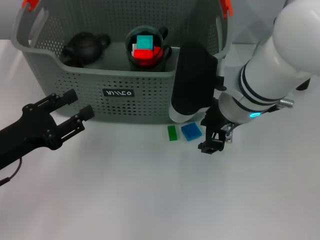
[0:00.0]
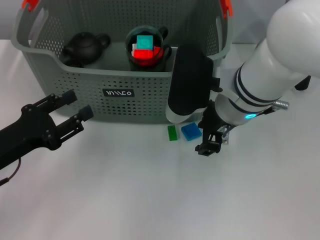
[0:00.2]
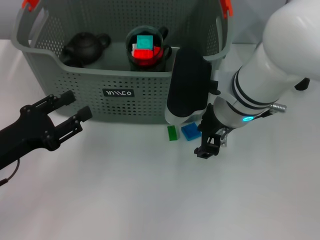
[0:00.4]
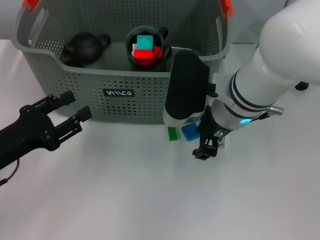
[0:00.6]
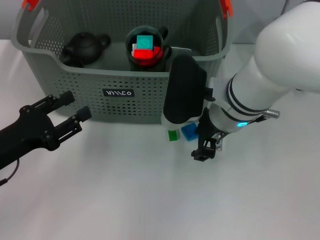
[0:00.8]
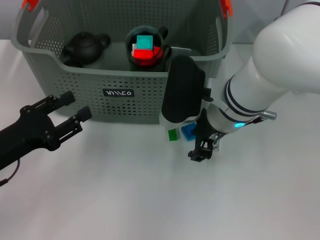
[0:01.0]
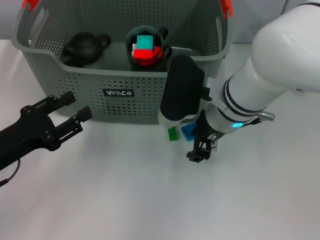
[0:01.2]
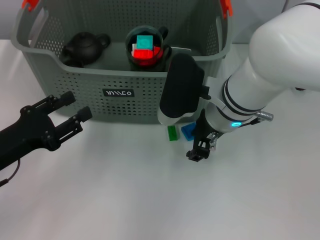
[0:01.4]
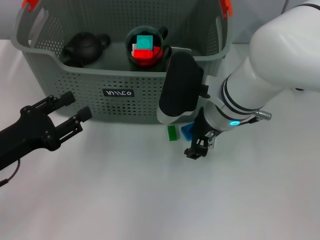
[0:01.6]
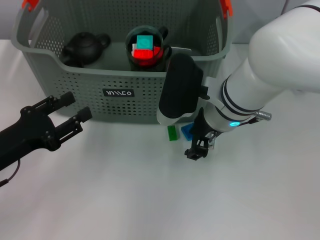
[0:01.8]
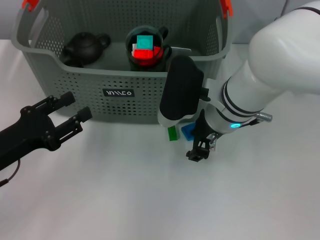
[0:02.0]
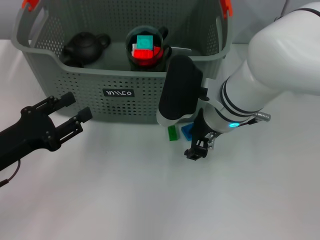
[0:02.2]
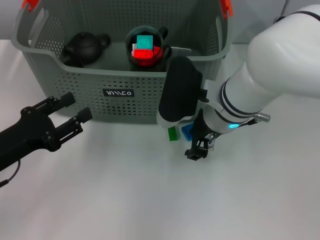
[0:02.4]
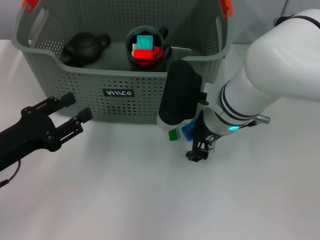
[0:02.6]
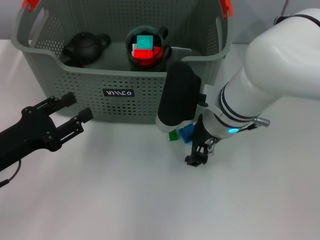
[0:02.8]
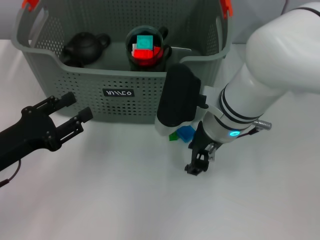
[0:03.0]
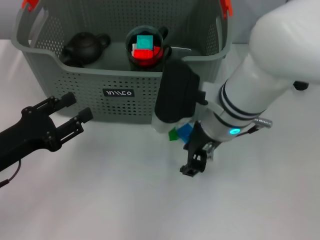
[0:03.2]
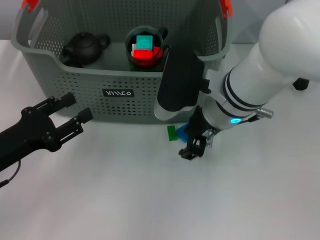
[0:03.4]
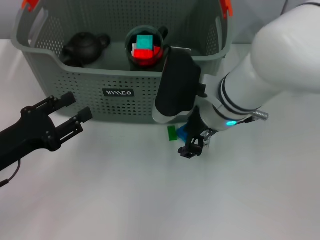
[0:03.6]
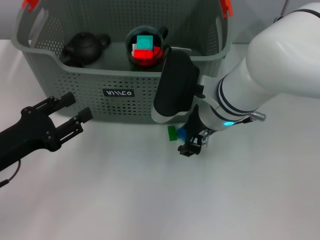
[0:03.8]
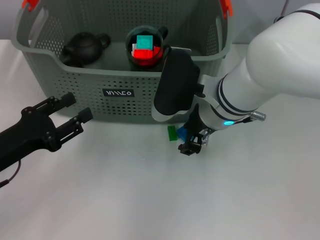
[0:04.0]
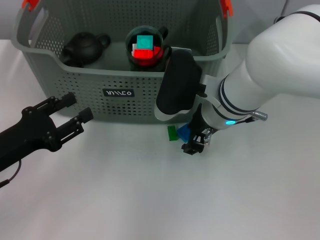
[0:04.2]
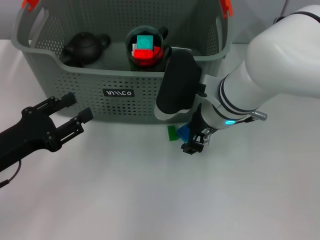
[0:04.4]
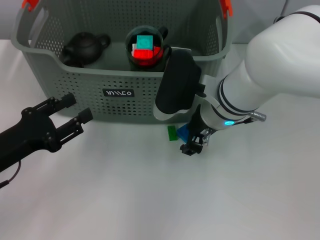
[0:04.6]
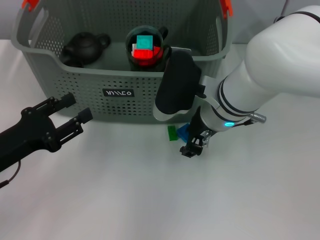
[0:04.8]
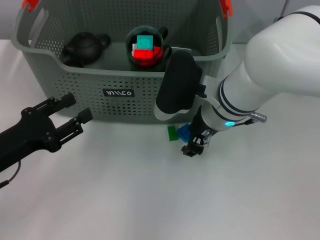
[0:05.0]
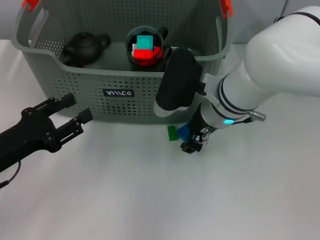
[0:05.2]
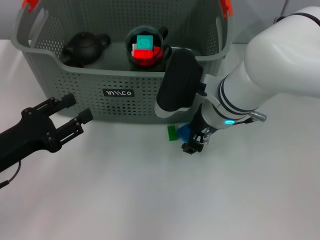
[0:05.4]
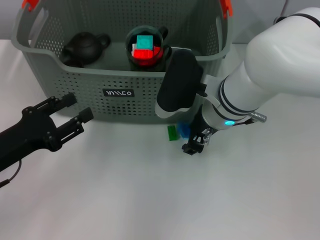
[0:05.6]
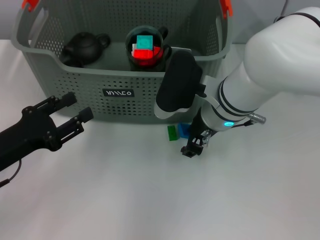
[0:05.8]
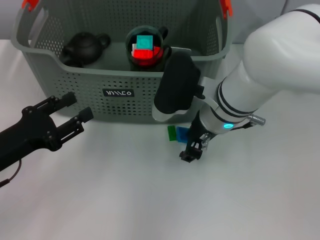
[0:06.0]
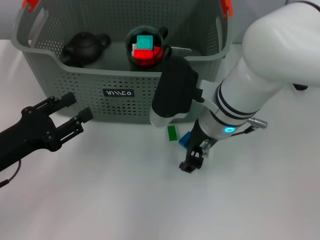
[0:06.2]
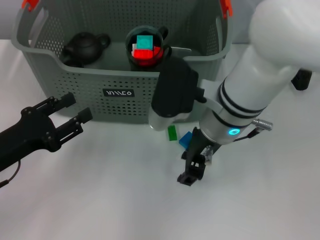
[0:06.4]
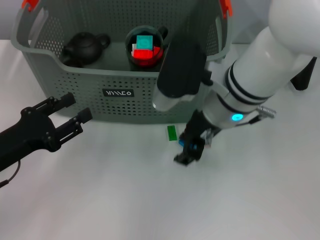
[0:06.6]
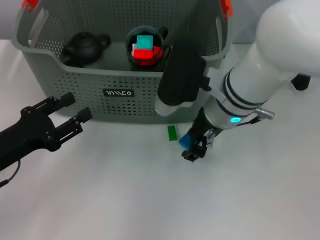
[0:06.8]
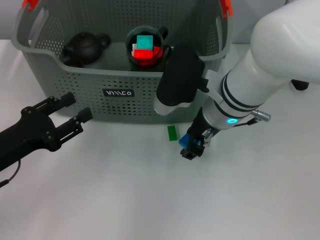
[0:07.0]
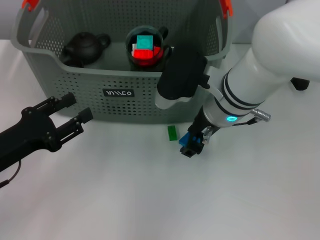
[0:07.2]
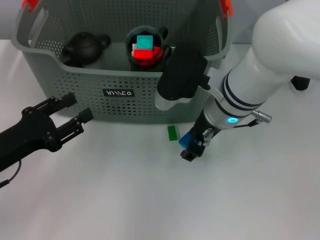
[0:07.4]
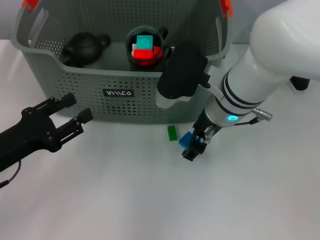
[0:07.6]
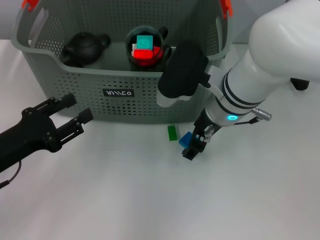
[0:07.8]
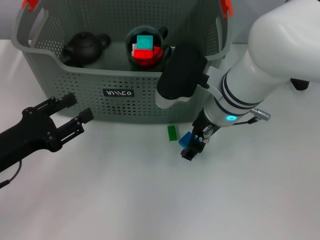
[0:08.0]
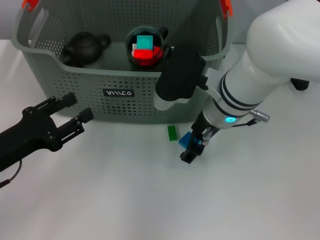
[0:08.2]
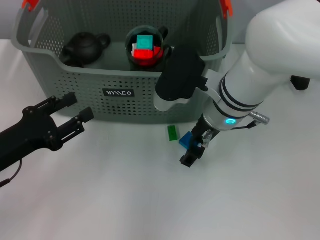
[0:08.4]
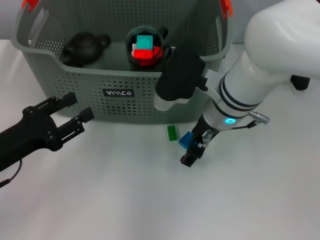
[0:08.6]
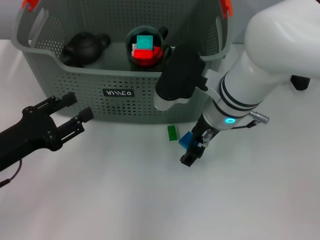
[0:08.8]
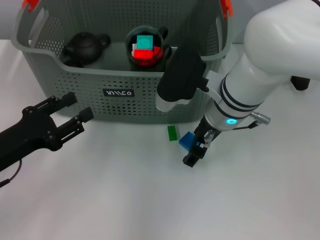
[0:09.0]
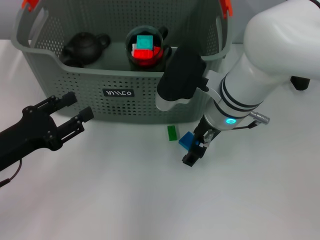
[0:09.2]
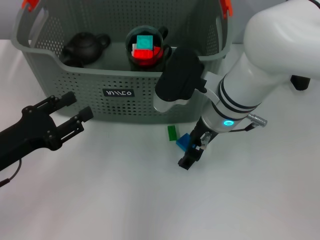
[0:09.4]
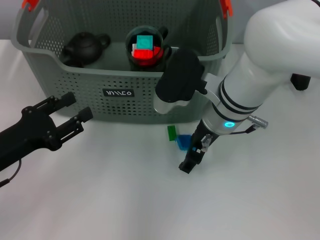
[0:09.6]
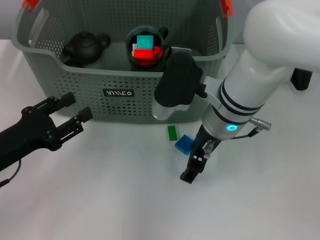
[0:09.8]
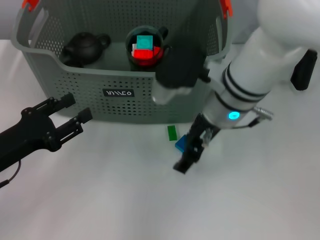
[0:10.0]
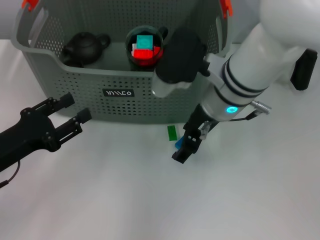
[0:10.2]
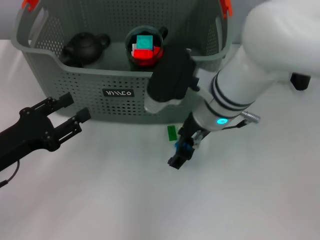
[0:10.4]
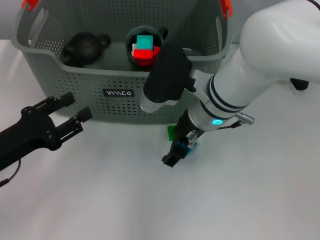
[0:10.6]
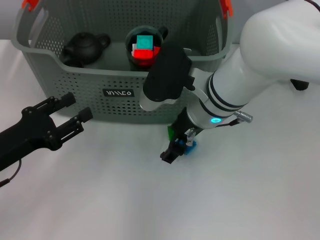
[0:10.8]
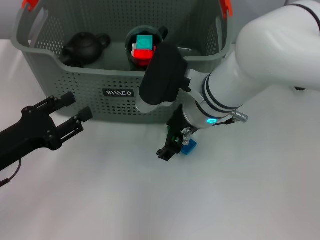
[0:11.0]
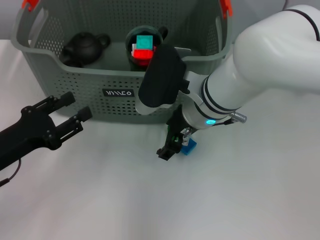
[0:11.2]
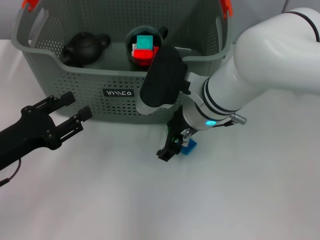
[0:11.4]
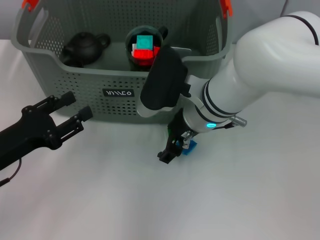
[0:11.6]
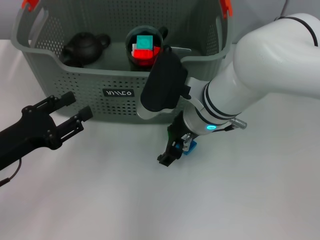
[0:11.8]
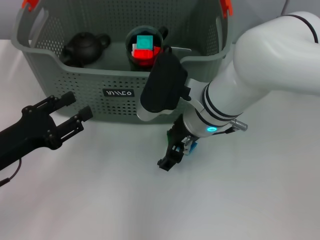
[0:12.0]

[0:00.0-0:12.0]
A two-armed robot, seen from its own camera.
Task of the whole recording: pick up the teacup on the table and place it into the storage bin, pick up the block on the table and place it into the storage bin.
0:00.0 to 0:01.6: The grippers move only a little.
0:01.6 to 0:03.0: Neither gripper changes place.
0:03.0 to 0:04.4: The grippers make only small movements.
0:04.4 to 0:06.0: Neither gripper changes place.
0:06.0 to 0:07.6: The grippers move only a little.
0:07.6 to 0:09.0: Both grippers stay put.
0:09.0 to 0:12.0: The grippers make only small movements.

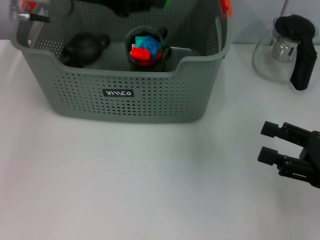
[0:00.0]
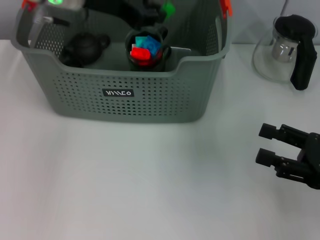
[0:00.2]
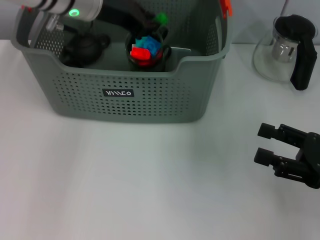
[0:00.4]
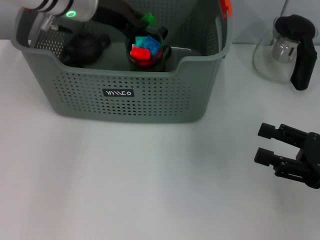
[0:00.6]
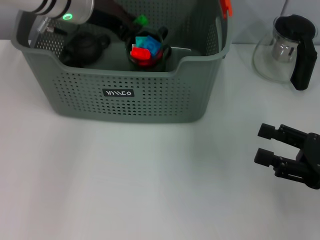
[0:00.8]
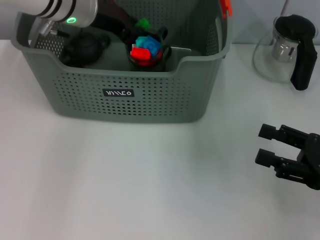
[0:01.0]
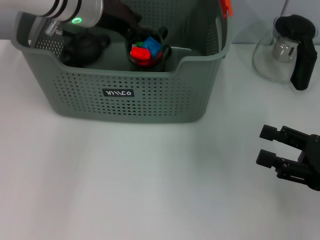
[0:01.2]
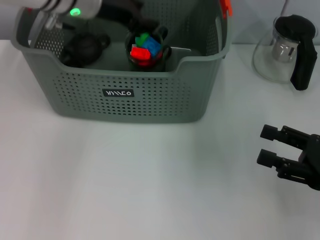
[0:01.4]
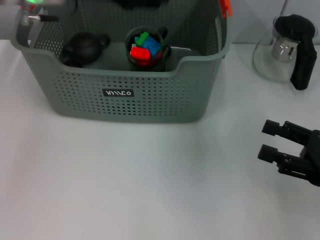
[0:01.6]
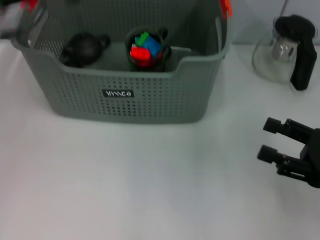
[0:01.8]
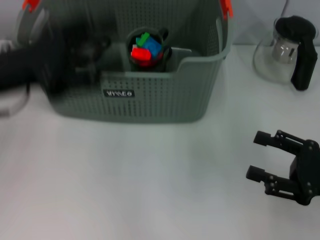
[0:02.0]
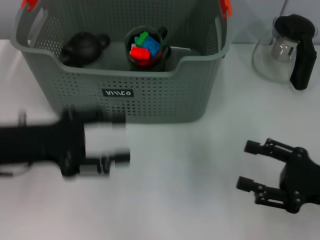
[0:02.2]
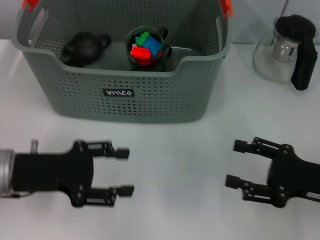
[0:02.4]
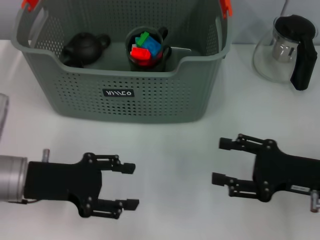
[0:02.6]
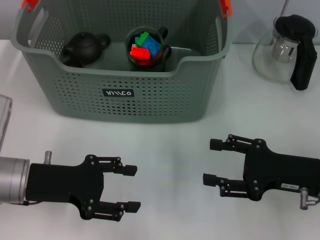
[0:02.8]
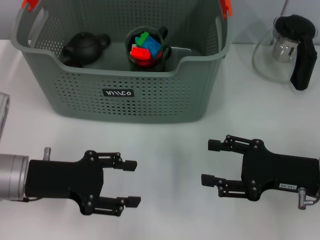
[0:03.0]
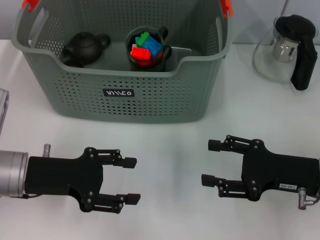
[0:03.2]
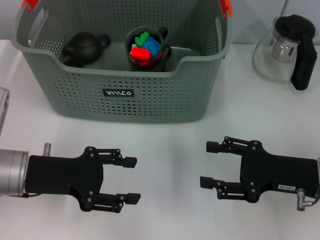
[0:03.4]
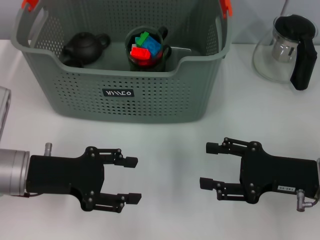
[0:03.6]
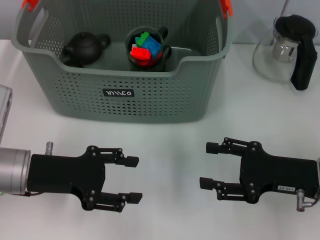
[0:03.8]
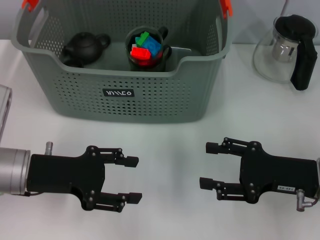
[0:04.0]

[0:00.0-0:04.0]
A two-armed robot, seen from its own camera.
Task of the whole recording: pick up the teacup on the table and place it into the storage bin, pick up the block on the table and place it into the storage bin.
0:00.0 to 0:01.4: The left gripper shifts by about 5 cm.
0:01.4 to 0:02.6: The right gripper changes place by about 5 cm. Meanwhile the left gripper heads backward, downward and to the left, covering some 25 cm, and opens up.
0:02.6 to 0:04.0: The grippers stay close to where they were, moving slightly.
